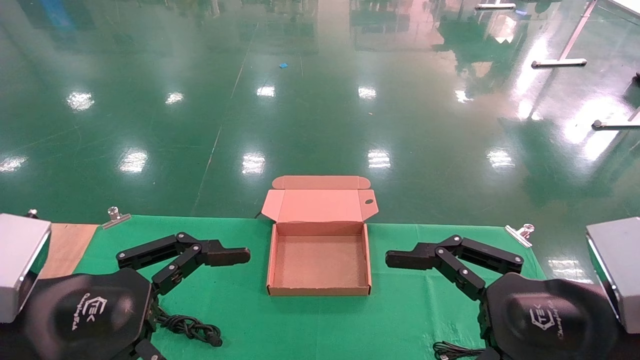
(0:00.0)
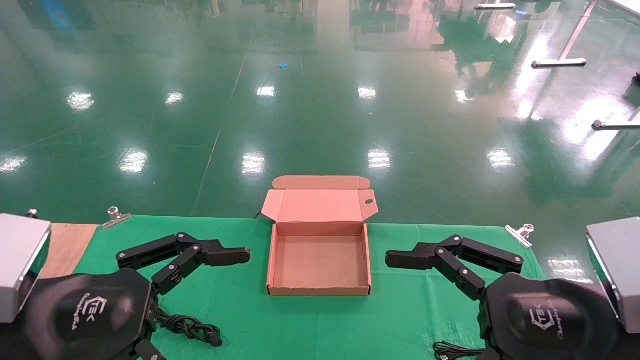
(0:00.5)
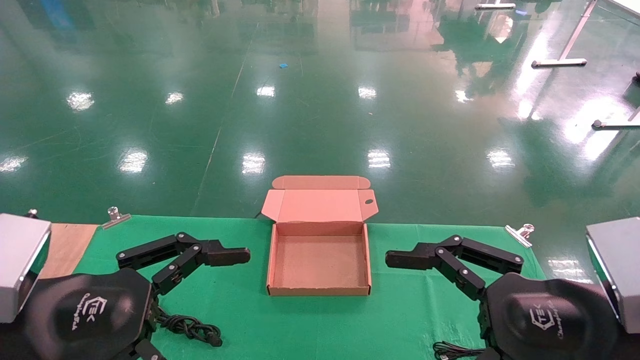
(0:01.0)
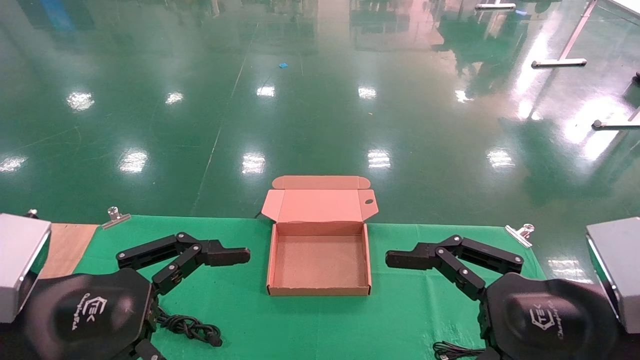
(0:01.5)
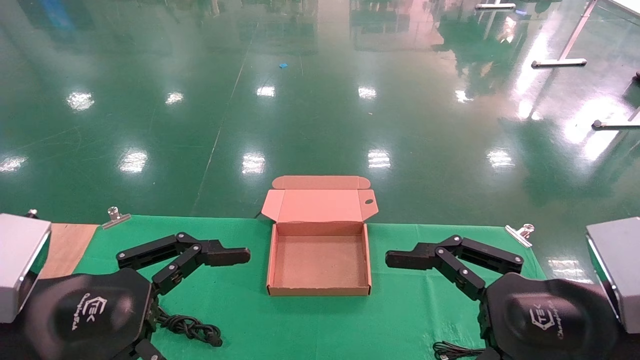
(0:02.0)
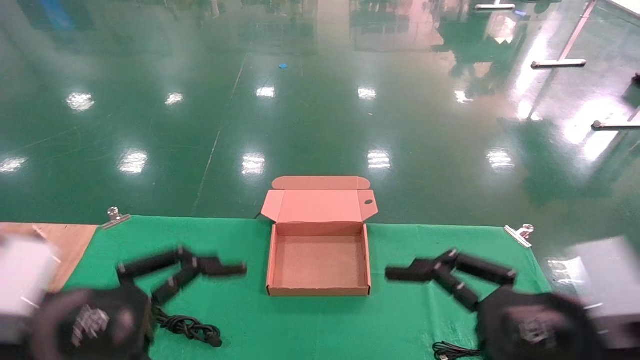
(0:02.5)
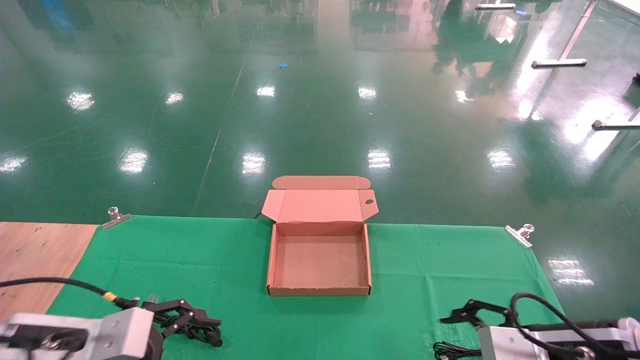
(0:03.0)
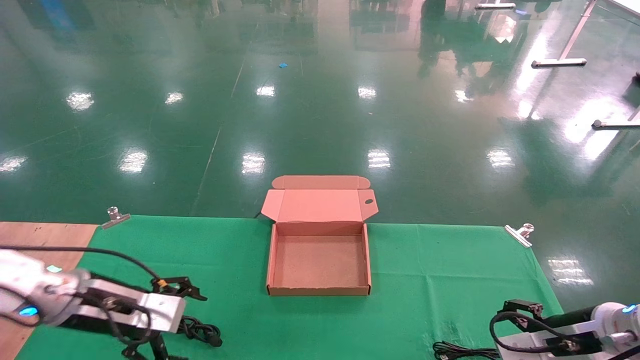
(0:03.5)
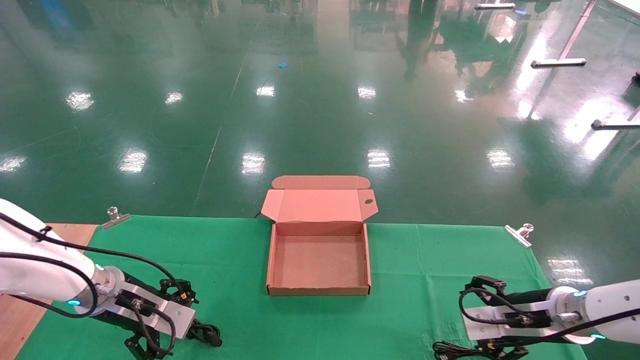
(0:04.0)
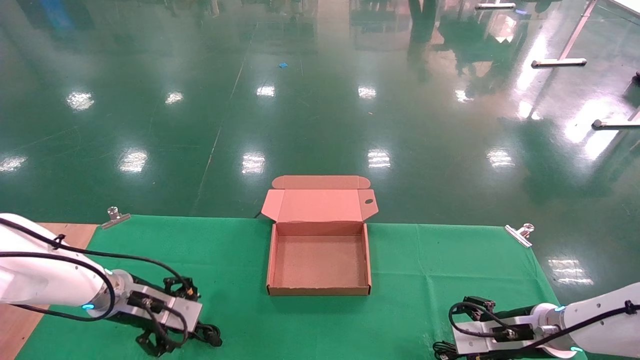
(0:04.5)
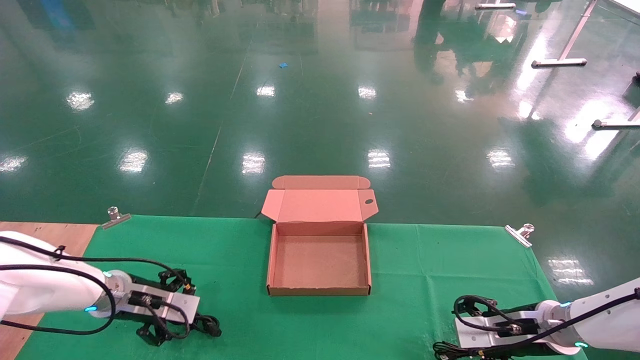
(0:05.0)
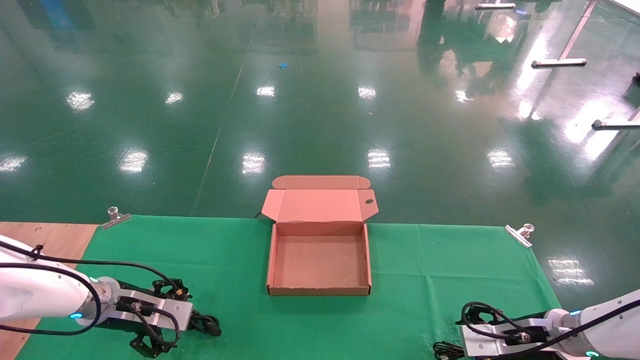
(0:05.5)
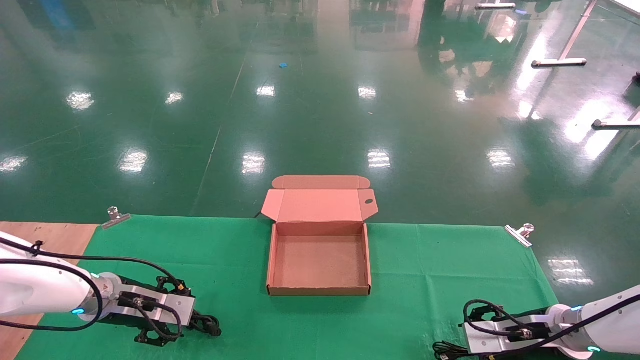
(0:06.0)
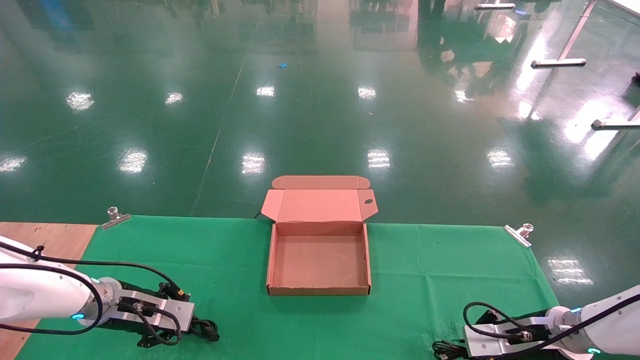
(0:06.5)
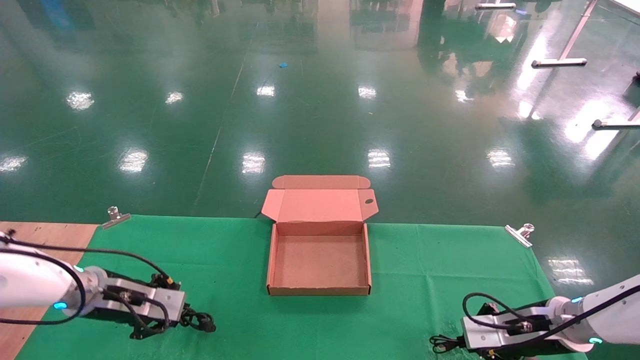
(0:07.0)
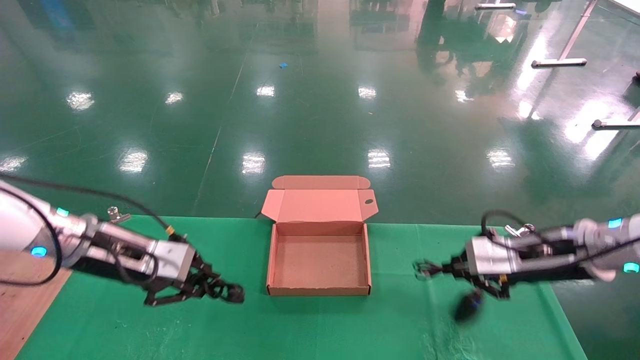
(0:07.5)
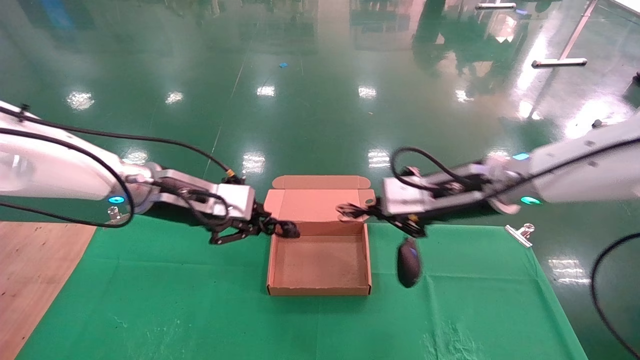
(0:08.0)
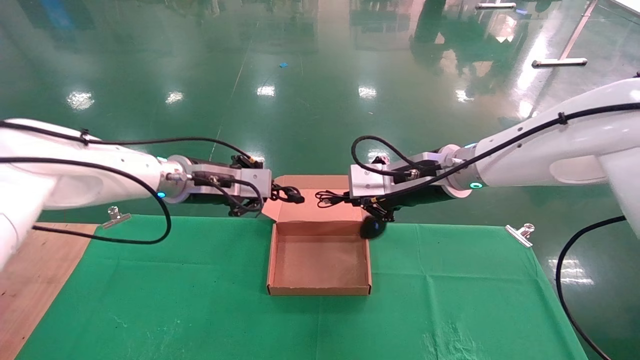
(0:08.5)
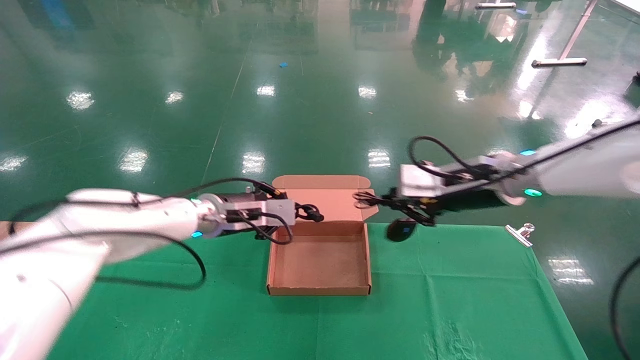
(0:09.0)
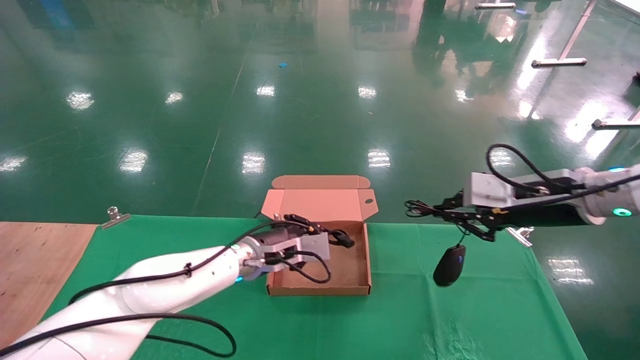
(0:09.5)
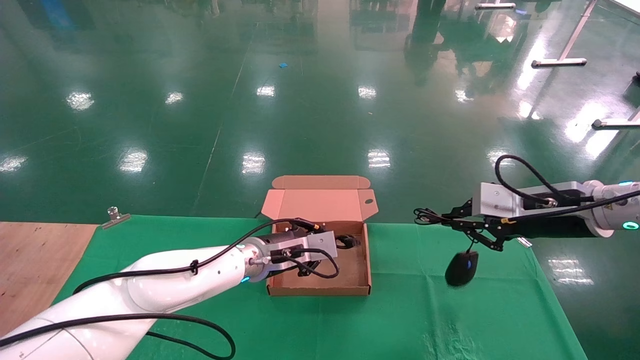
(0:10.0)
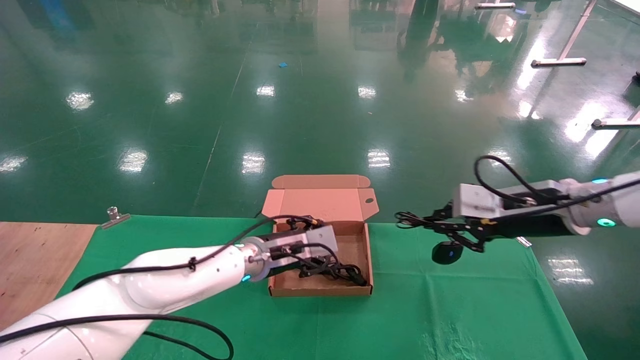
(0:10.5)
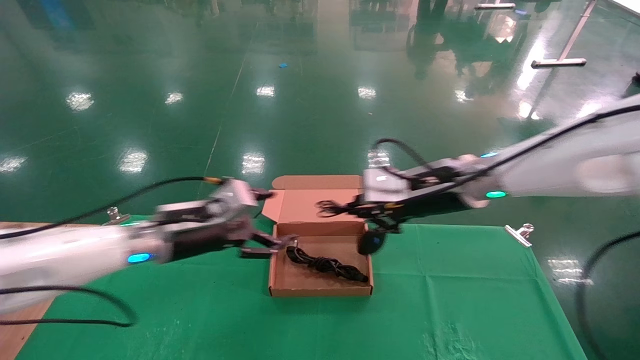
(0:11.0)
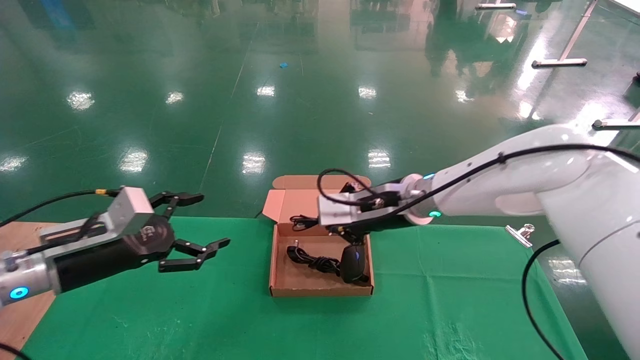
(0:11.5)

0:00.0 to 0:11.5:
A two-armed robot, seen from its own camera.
Step, 0:03.0 to 0:07.0: Grab and lift both the mouse and power cord from the accessory packaging area at the same time.
0:00.0 to 0:02.0: Both grippers stay about where they are.
0:02.0 to 0:04.0: The grippers both shift forward and downward by roughly 25 cm.
0:04.0 to 0:06.0: The grippers move only a little.
0:06.0 to 0:07.5: The grippers both shift upward by approximately 15 cm. The right gripper closes its fingers. The left gripper closes its fingers.
0:07.5 to 0:09.5: The left gripper goes approximately 20 cm to the right and forward. Meanwhile the right gripper moves upward, about 5 cm, and reaches approximately 15 cm to the left, then returns.
0:09.5 to 0:11.5: The left gripper moves to the left and backward, some 25 cm, and opens up; the right gripper travels to the left by approximately 20 cm.

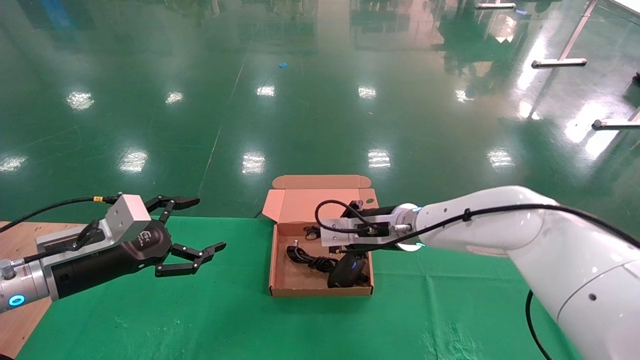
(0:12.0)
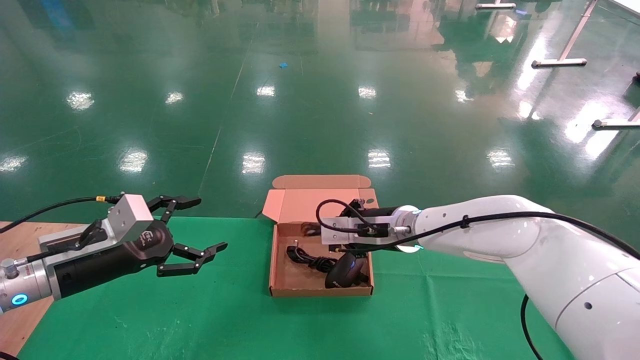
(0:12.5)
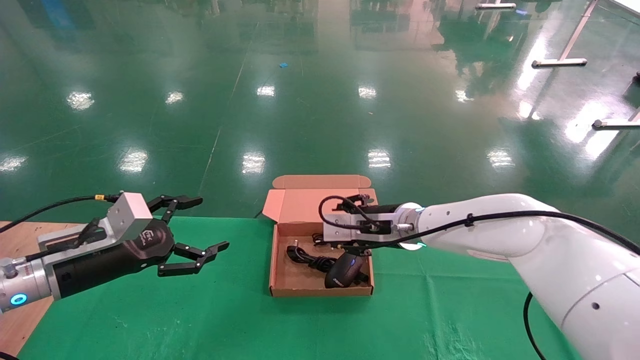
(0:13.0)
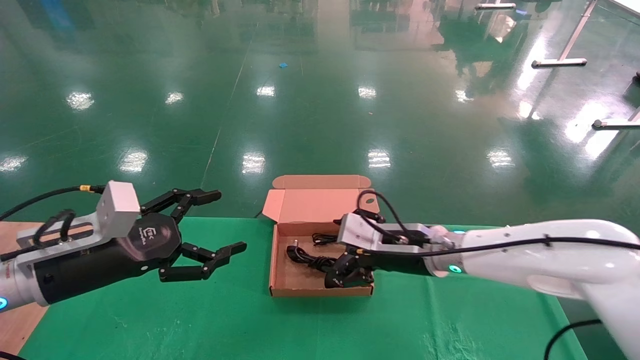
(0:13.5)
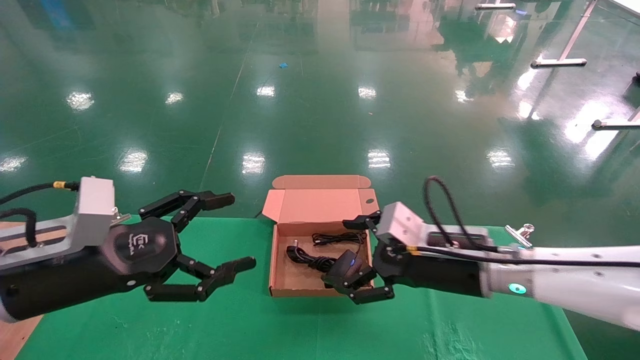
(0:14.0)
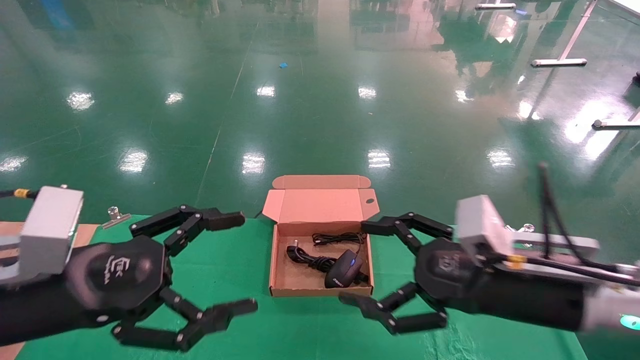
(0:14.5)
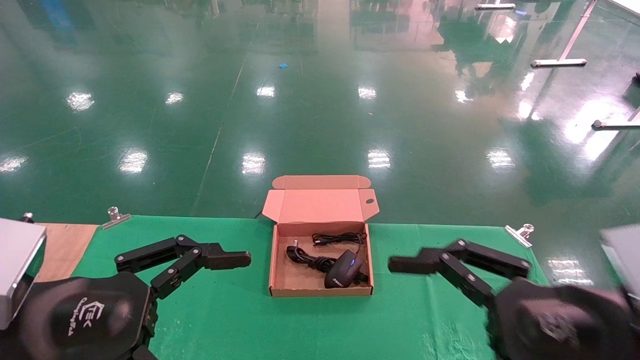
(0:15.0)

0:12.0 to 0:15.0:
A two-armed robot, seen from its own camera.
0:12.0 to 0:13.5: The right gripper moves some 5 cm, and opens, while the left gripper moves some 5 cm.
0:13.5 to 0:15.0: The right gripper shifts approximately 25 cm backward and to the right. The left gripper moves backward, roughly 15 cm.

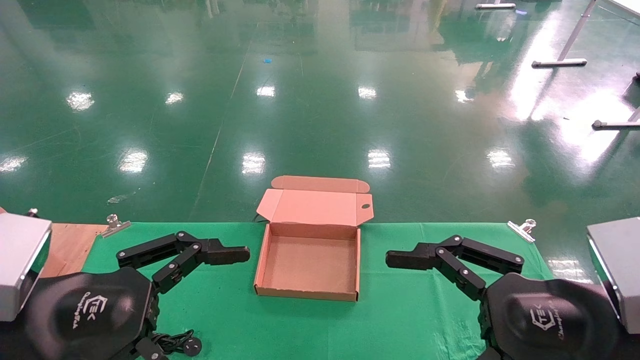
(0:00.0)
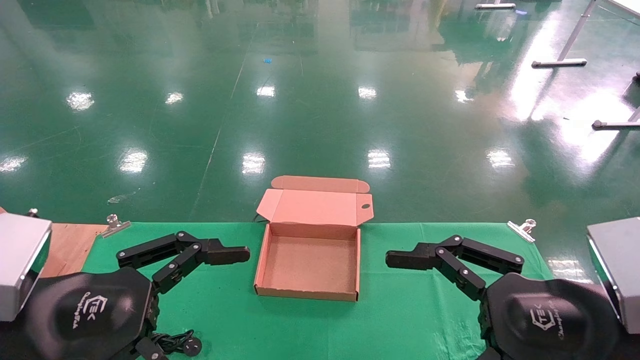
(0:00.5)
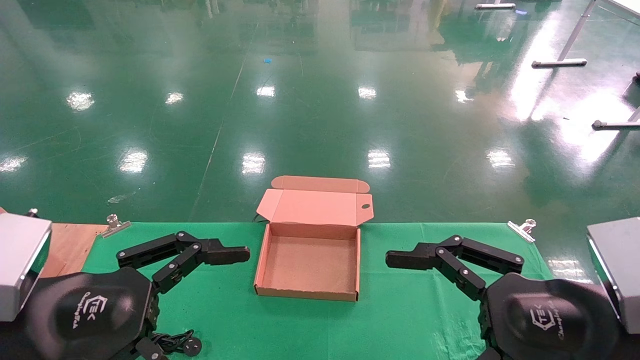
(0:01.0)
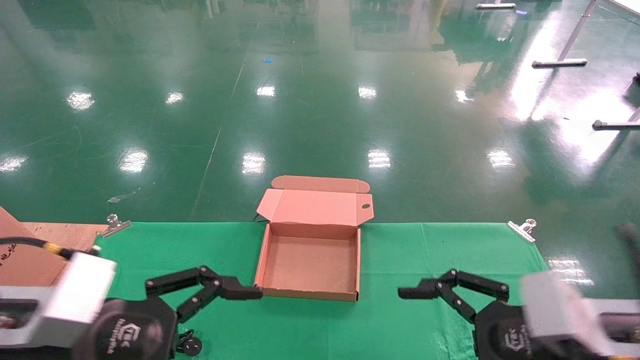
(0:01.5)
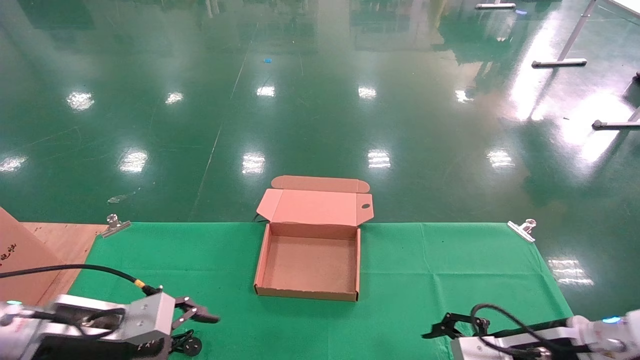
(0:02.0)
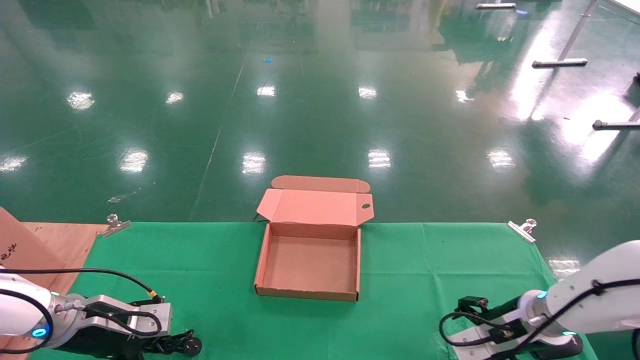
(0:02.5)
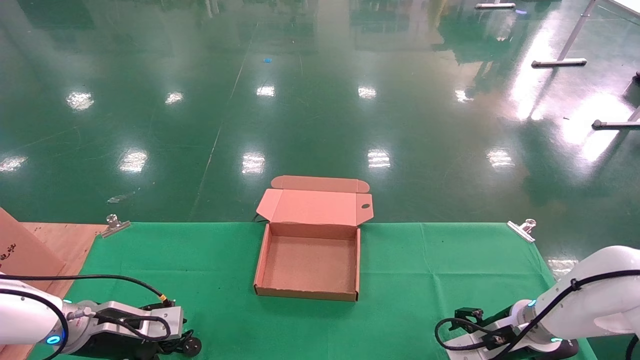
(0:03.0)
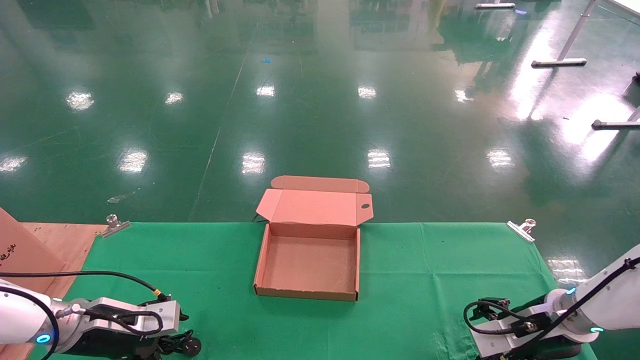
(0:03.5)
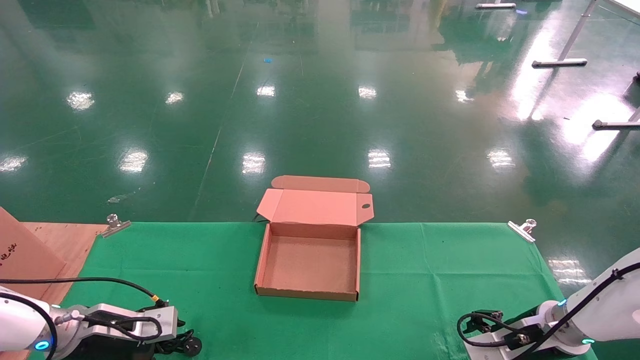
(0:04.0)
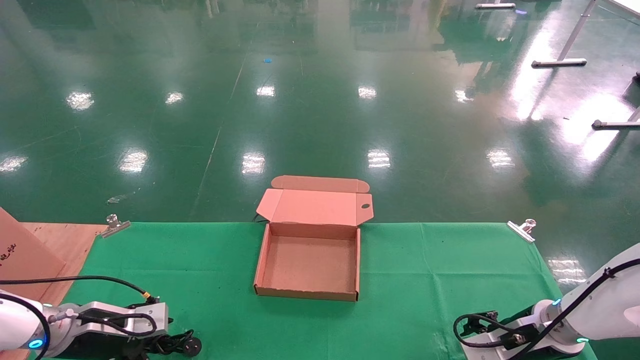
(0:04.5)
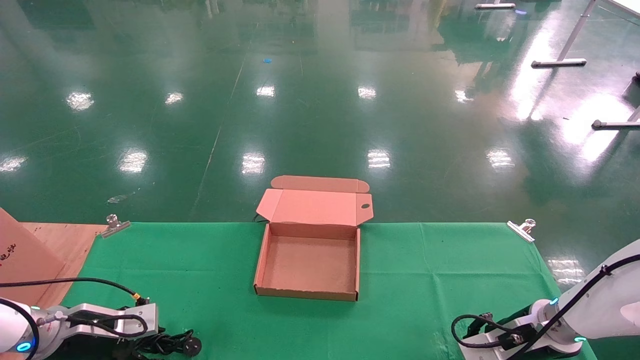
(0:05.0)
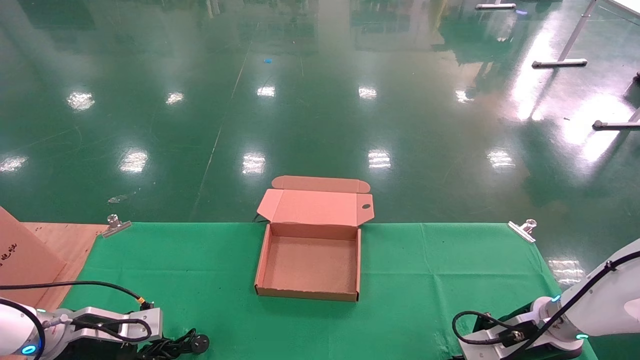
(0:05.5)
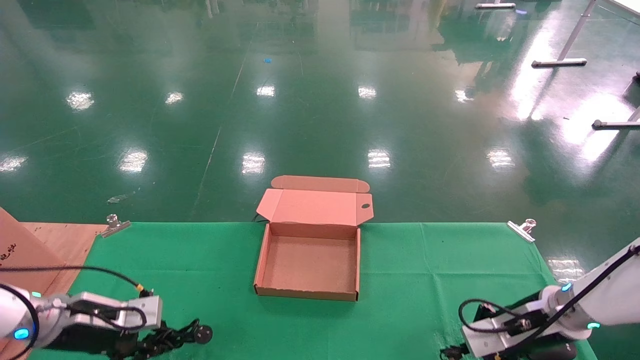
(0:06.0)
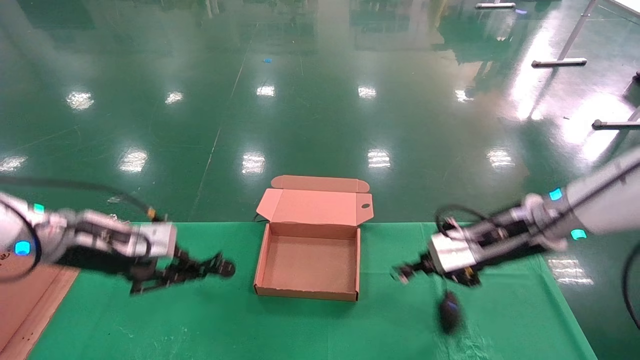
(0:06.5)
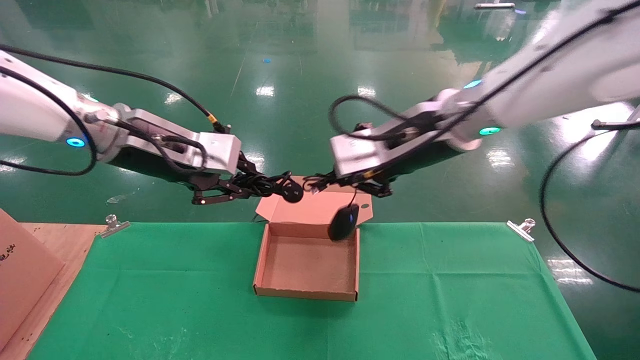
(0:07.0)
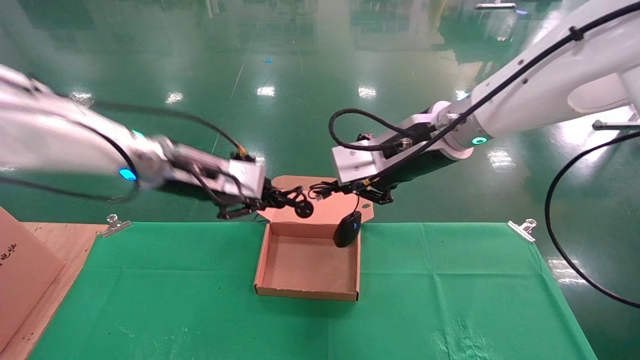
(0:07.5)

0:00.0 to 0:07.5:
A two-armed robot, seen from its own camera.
Step, 0:01.5 to 0:05.5: Grab and lift both the mouse and power cord from the accessory packaging area at the same time.
0:00.0 to 0:02.0: Both grippers travel together forward and downward, some 15 cm.
0:02.0 to 0:04.0: The right gripper is displaced forward and downward by some 10 cm, while the left gripper heads forward, downward and to the left, covering about 10 cm.
0:04.0 to 0:05.5: The right gripper closes. The left gripper closes up.
0:05.5 to 0:07.5: The left gripper travels upward and to the right by about 30 cm; the right gripper is displaced upward and to the left by about 35 cm.
